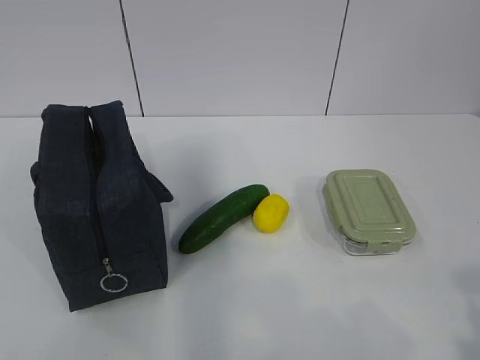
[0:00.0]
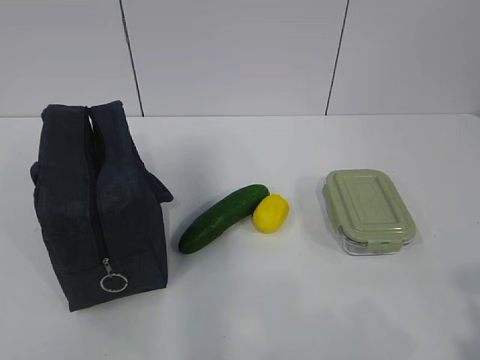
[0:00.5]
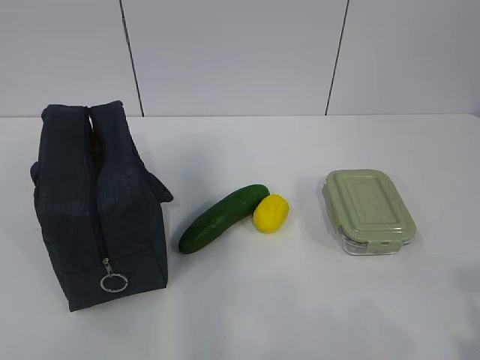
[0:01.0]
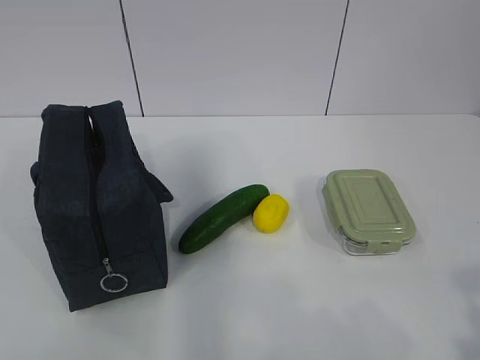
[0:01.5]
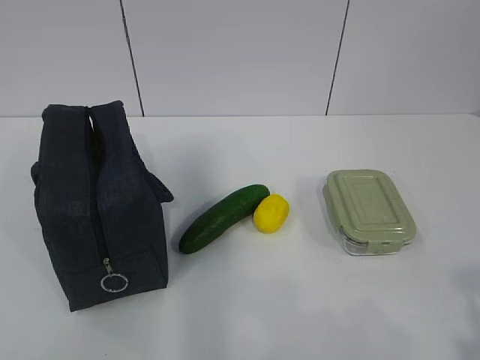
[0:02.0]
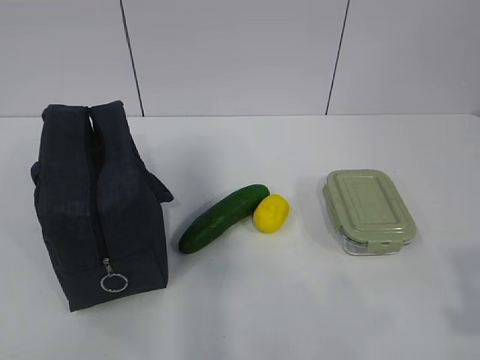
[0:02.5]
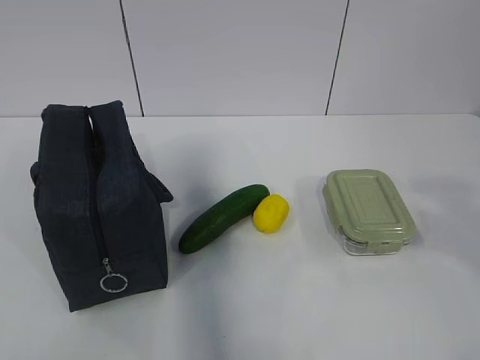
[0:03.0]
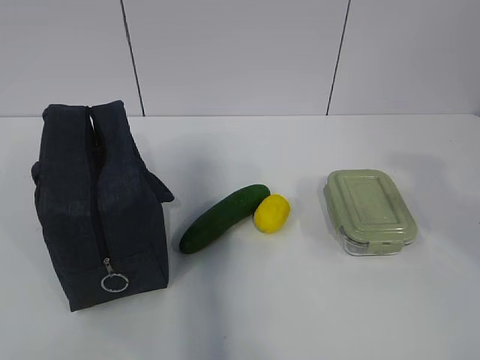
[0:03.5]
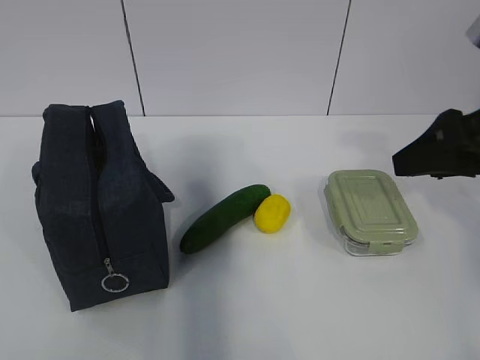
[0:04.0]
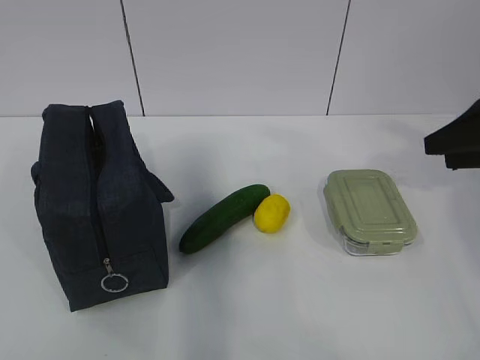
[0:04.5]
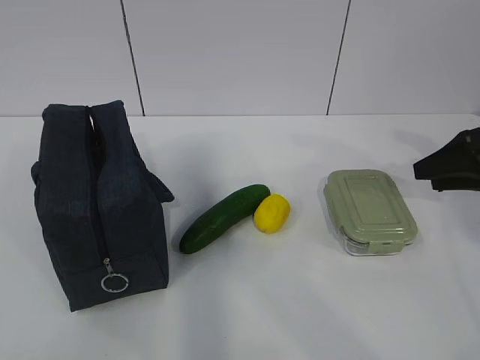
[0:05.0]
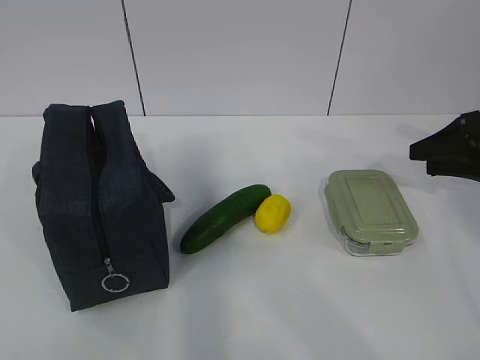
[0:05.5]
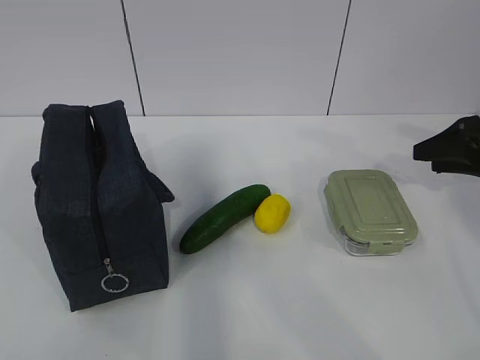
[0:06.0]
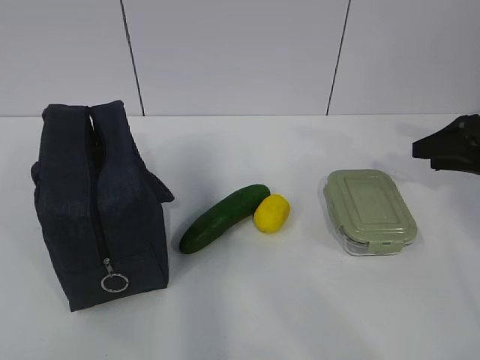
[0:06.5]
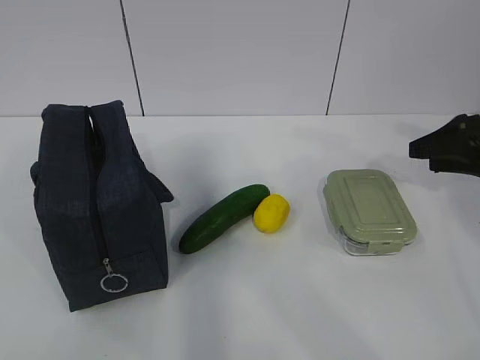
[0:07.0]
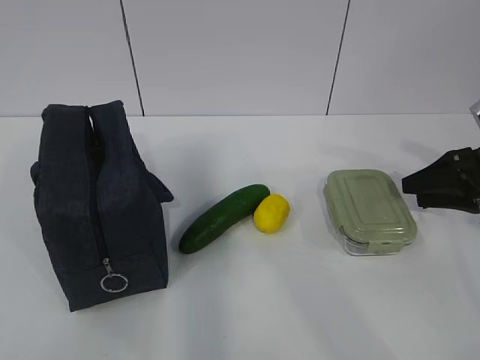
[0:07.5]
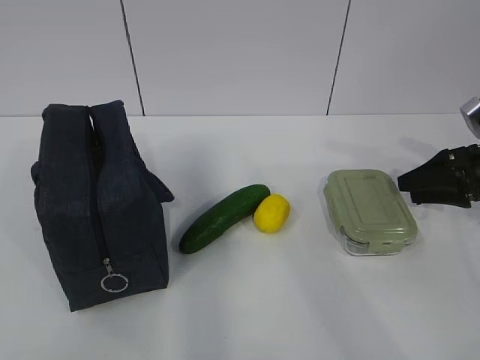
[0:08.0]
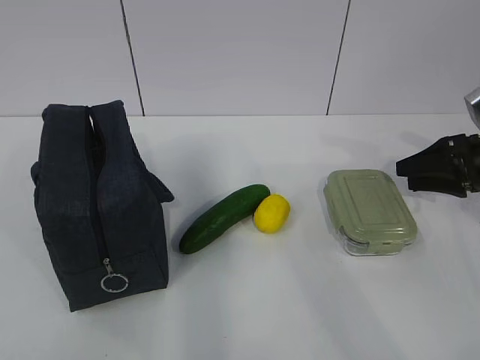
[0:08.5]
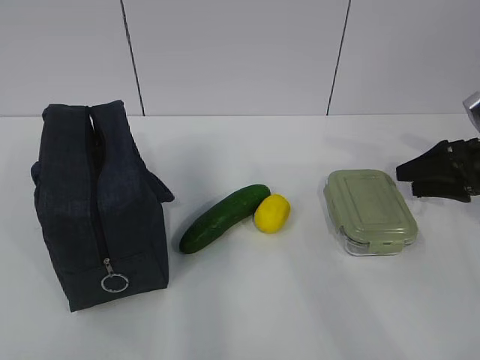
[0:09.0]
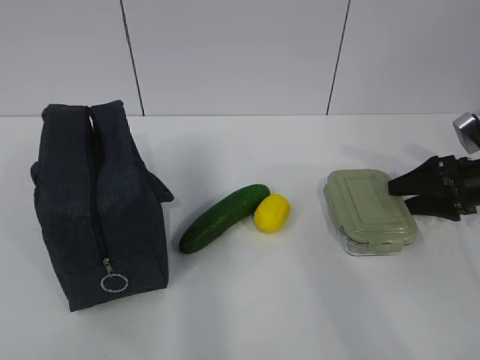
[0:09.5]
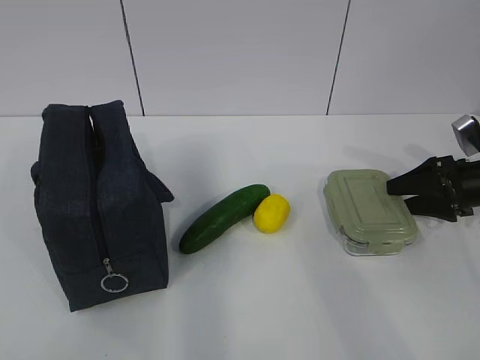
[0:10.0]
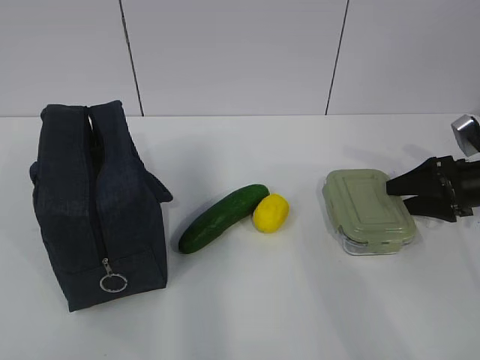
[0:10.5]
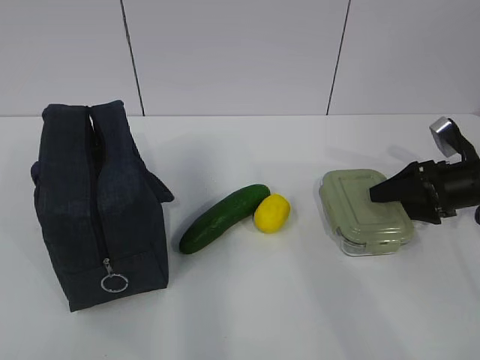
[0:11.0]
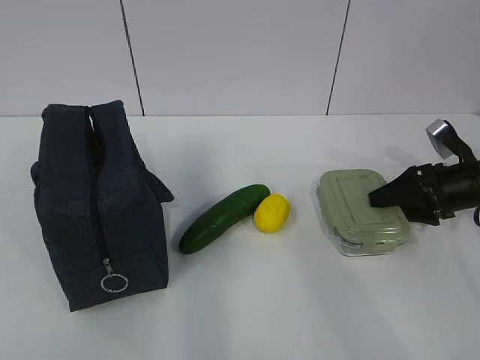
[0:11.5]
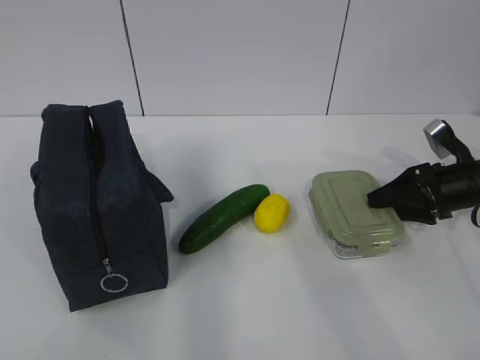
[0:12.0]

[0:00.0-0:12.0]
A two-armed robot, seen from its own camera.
0:02.0 to 0:04.0: The right gripper heads forward, covering about 25 cm.
0:04.0 to 0:06.0: The right gripper travels to the right, forward and downward by some 20 cm.
0:06.0 to 0:08.0: The right gripper travels downward by roughly 5 cm.
0:08.0 to 0:12.0: The grippers move only a little.

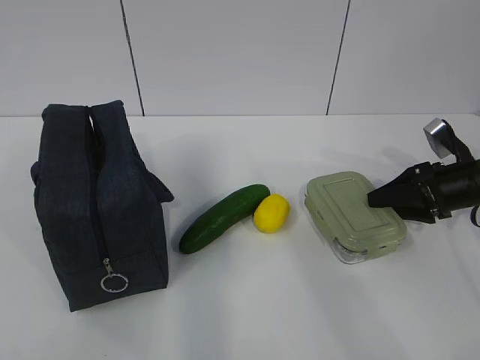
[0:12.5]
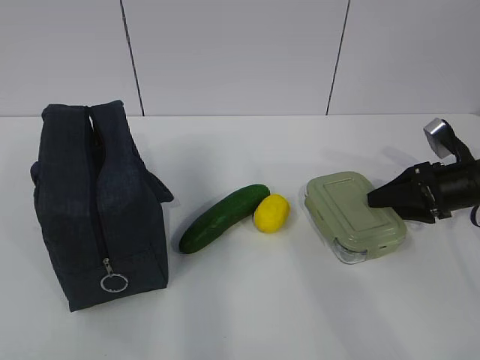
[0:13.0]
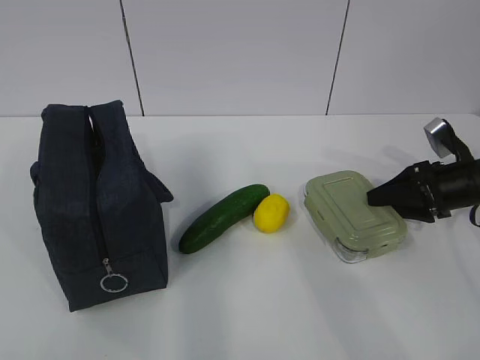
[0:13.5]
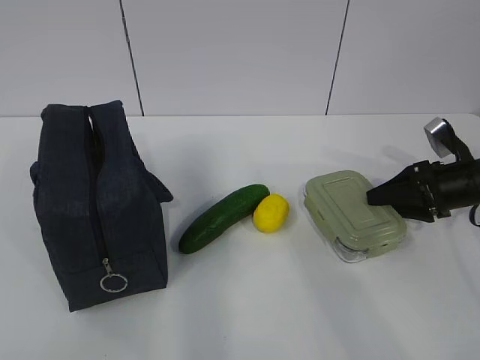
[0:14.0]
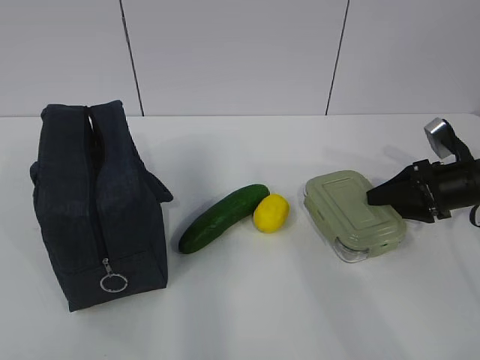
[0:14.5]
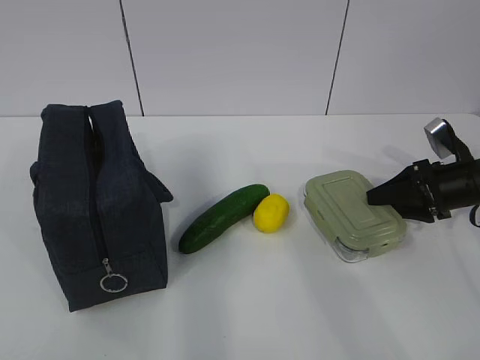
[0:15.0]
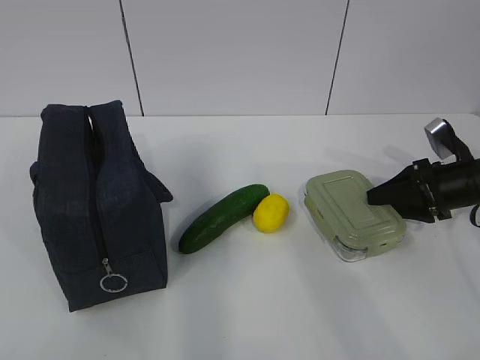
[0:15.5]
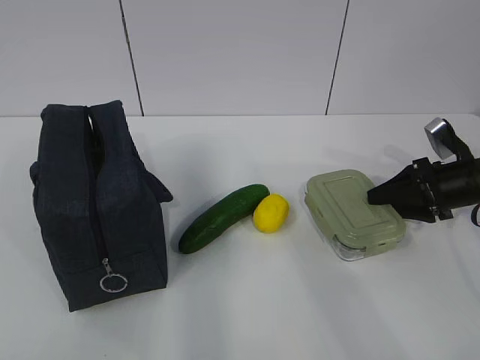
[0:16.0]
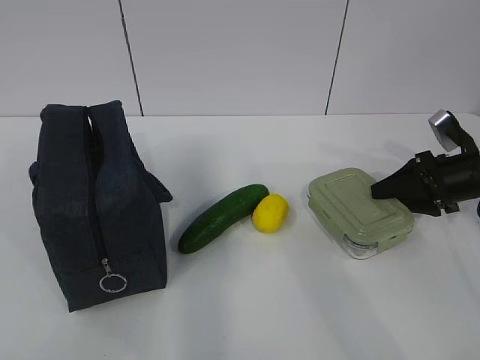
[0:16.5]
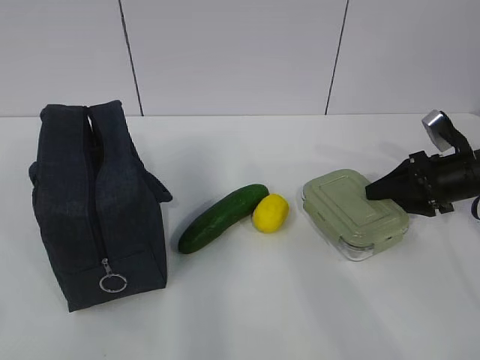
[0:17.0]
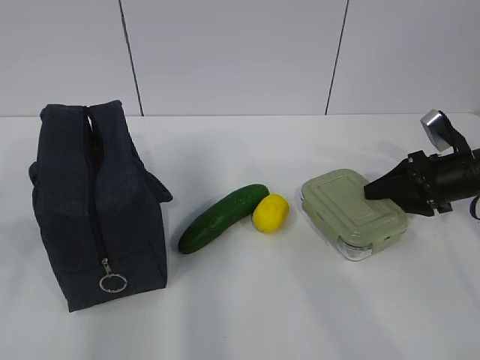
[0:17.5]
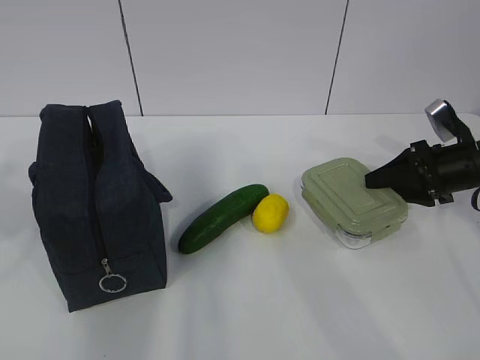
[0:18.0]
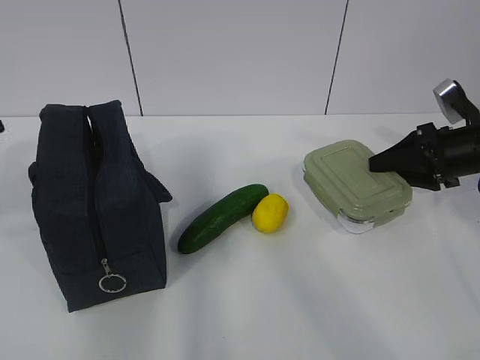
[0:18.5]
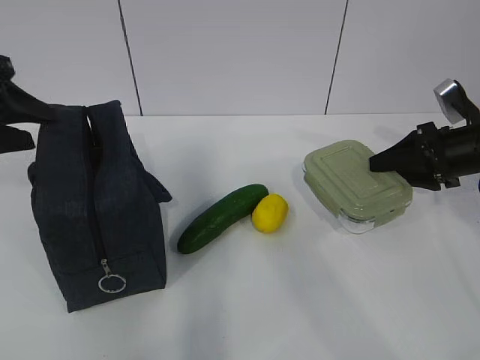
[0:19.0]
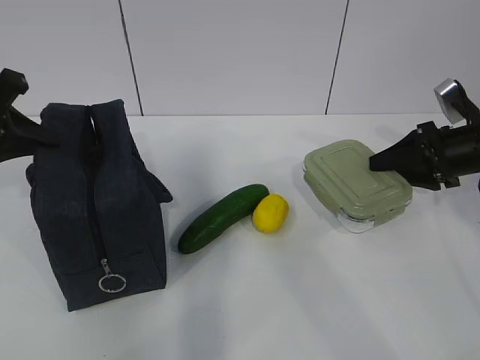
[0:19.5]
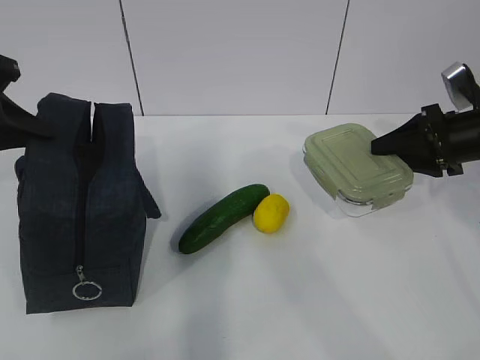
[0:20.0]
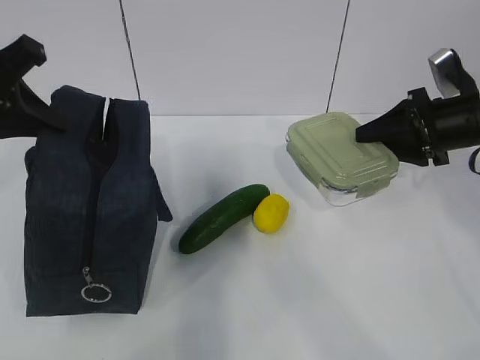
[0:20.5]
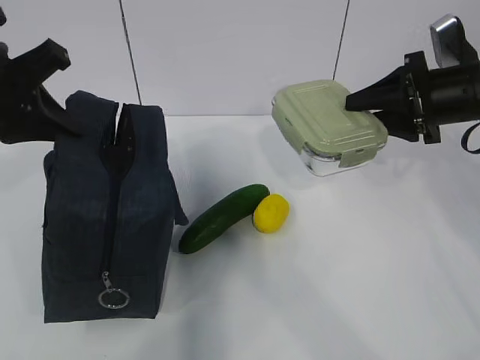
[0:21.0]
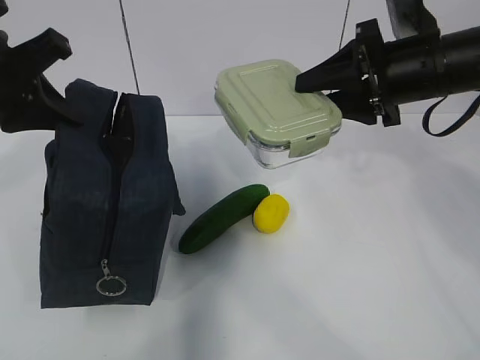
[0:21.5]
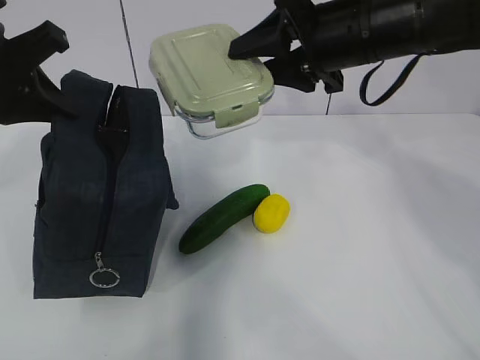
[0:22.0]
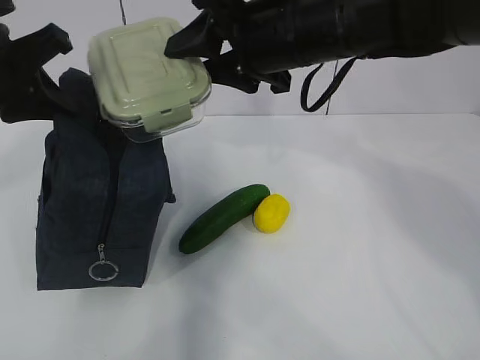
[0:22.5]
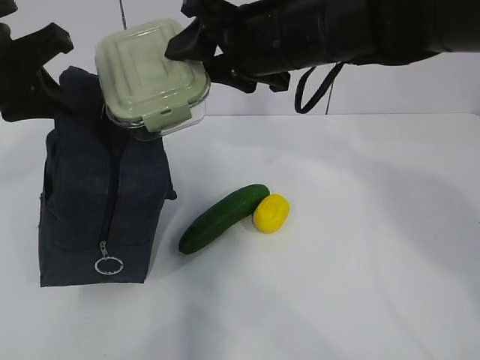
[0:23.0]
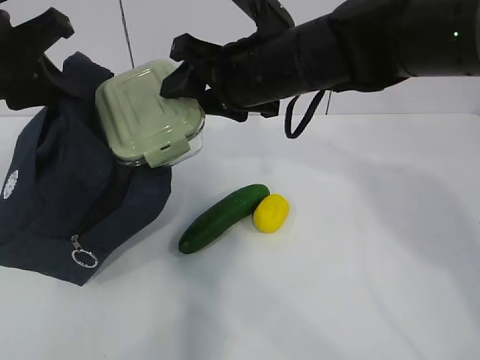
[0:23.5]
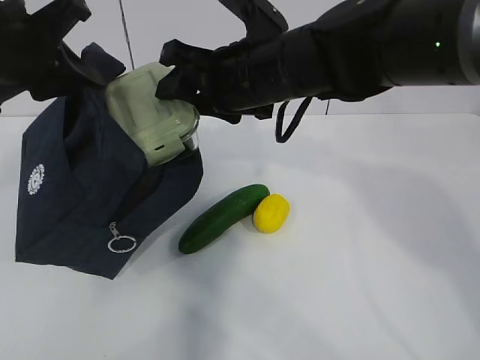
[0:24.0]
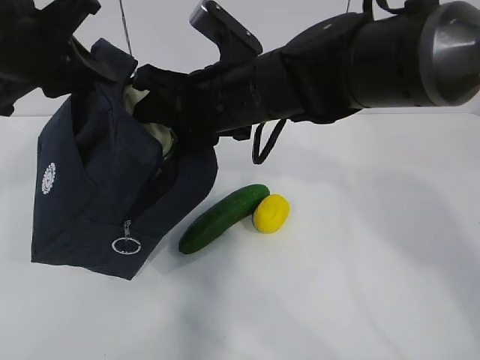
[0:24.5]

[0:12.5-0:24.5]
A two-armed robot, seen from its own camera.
Step, 0:14.5 to 0:19.0: Grab the lunch bag with your left hand.
Step, 0:19.5 to 0:21.0: Place it into the bag with your right hand.
0:12.5 to 0:14.5: Neither gripper changes place.
0:14.5 to 0:16.5: The two grippers keep their place.
0:16.5 to 0:18.5: The left gripper travels forward by approximately 20 cm.
0:18.5 to 0:20.5: The left gripper travels forward by some 10 cm, and closes its fingers.
0:20.5 to 0:22.5: The right gripper travels to the left and upward by roughly 25 cm.
0:22.5 to 0:24.5: The right gripper heads to the left and downward, covering some 10 cm.

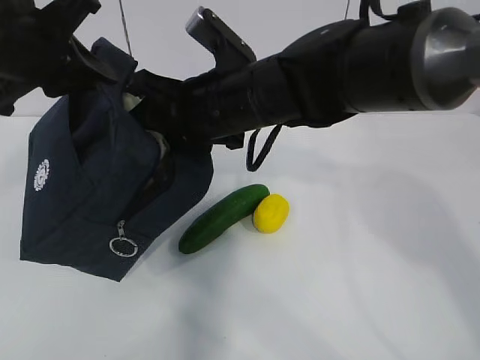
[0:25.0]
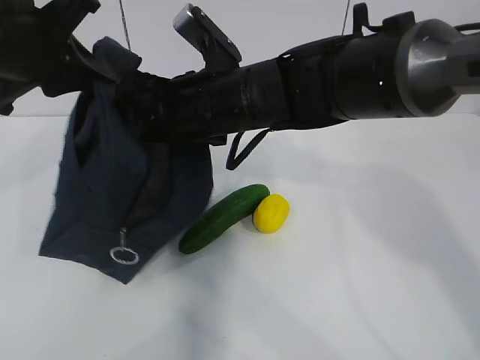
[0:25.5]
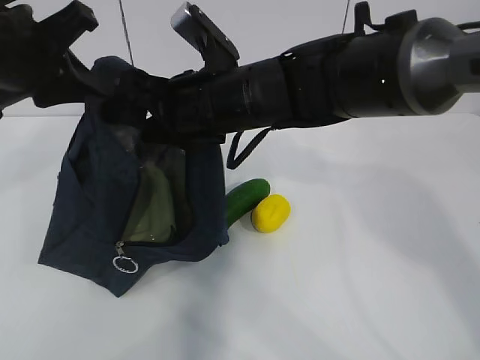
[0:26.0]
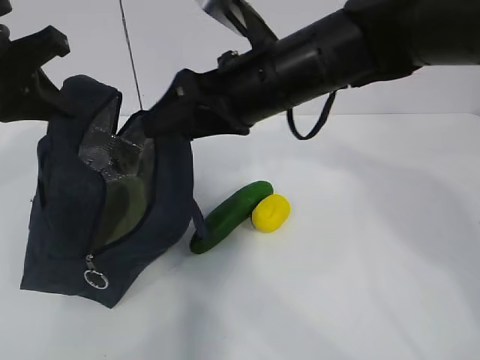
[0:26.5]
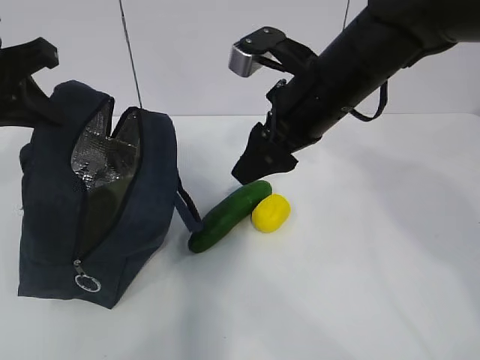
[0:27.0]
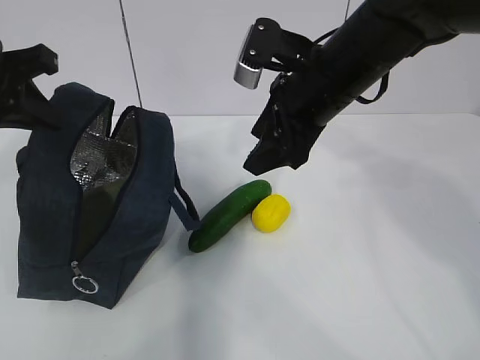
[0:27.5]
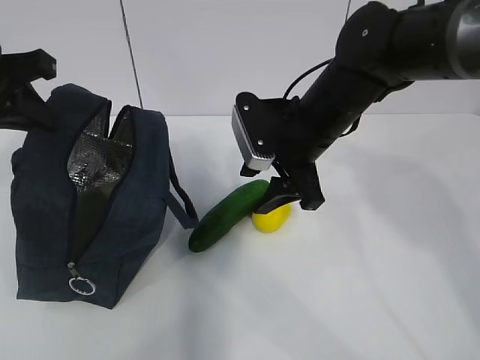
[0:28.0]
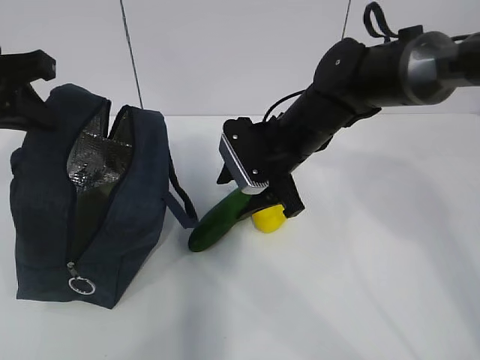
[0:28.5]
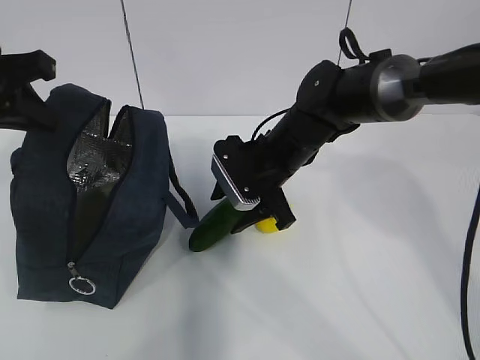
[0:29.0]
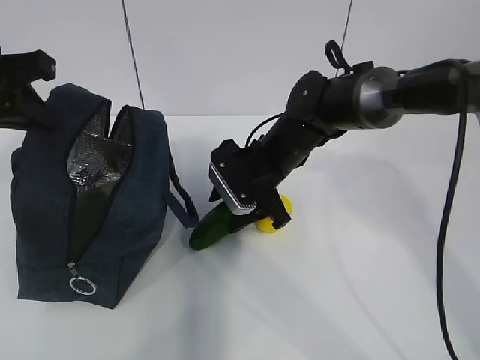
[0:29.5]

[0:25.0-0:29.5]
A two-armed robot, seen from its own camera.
Step, 0:25.0 to 0:29.5: Place it into the bag with your right hand.
0:25.0 to 0:27.0: The right gripper moves to the right, roughly 10 cm.
0:27.0 to 0:29.5: The right gripper is displaced downward and forward by about 15 cm.
